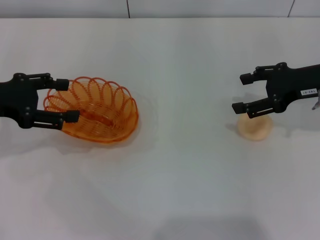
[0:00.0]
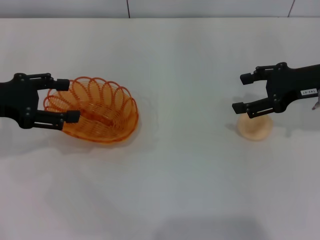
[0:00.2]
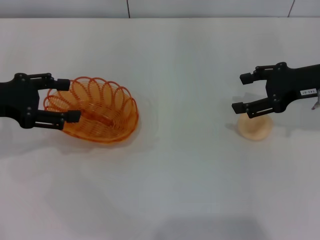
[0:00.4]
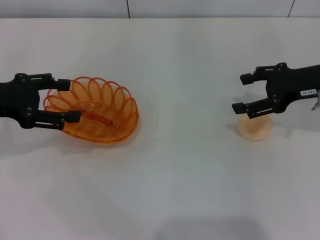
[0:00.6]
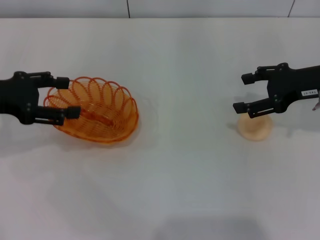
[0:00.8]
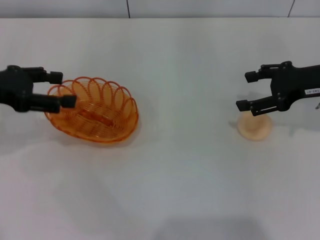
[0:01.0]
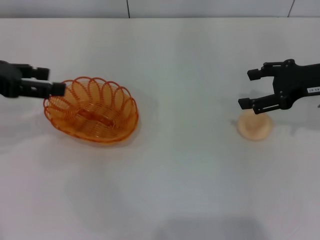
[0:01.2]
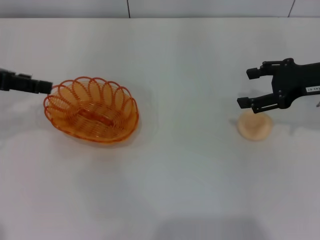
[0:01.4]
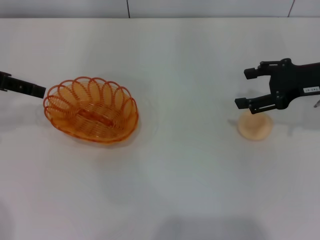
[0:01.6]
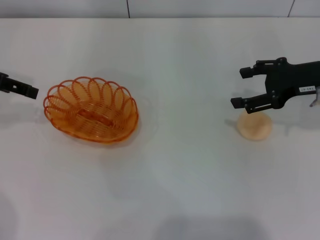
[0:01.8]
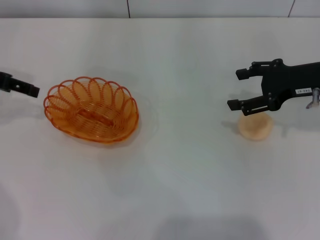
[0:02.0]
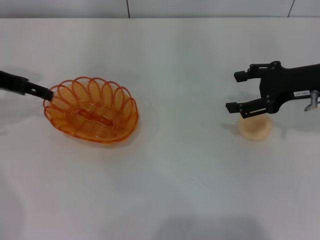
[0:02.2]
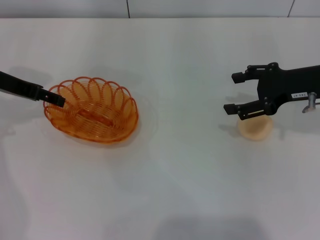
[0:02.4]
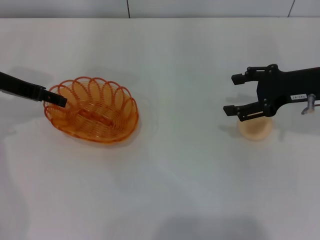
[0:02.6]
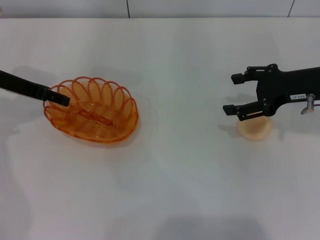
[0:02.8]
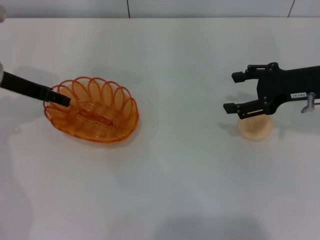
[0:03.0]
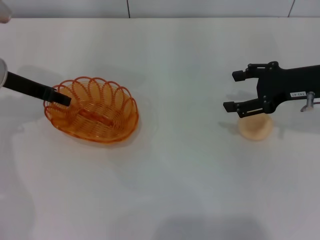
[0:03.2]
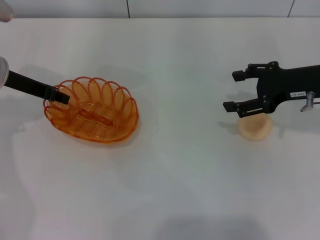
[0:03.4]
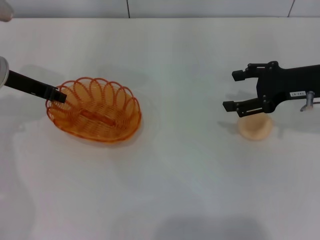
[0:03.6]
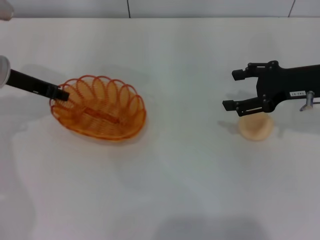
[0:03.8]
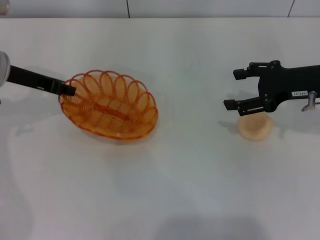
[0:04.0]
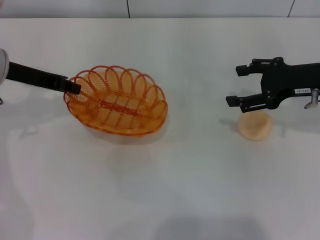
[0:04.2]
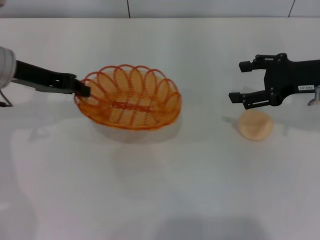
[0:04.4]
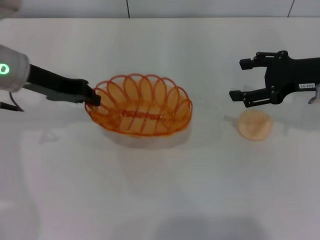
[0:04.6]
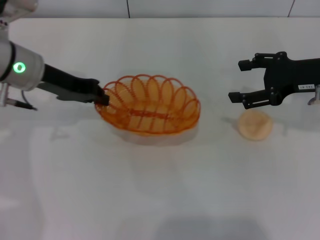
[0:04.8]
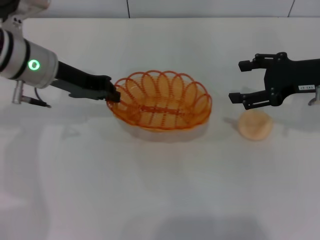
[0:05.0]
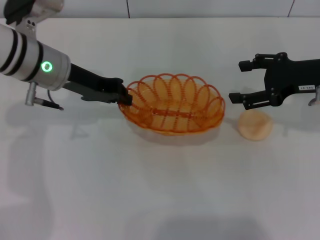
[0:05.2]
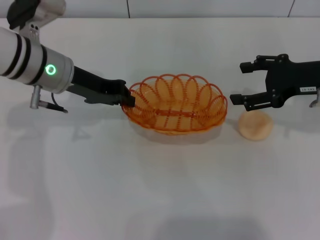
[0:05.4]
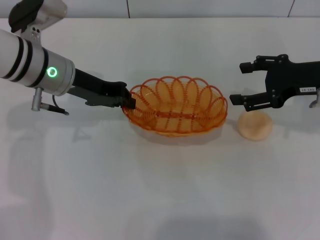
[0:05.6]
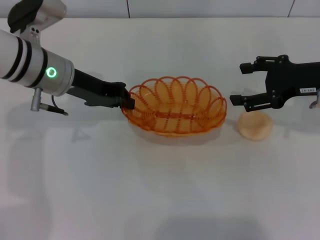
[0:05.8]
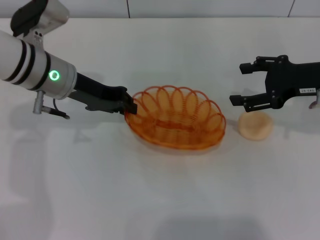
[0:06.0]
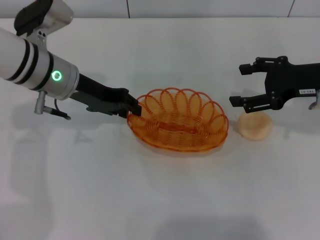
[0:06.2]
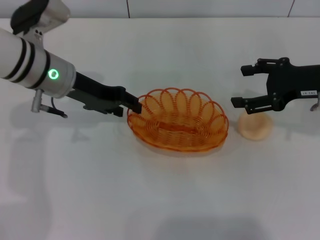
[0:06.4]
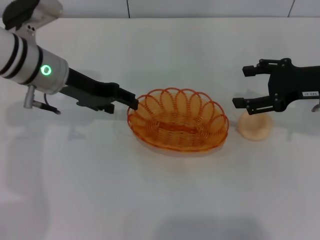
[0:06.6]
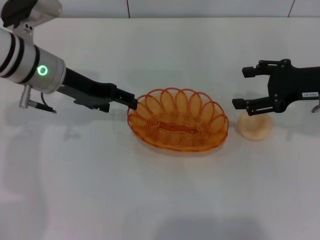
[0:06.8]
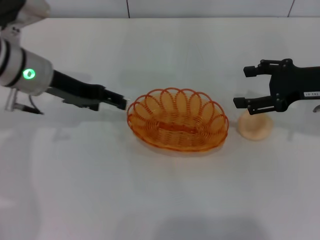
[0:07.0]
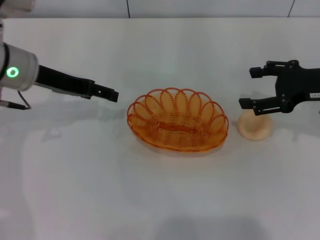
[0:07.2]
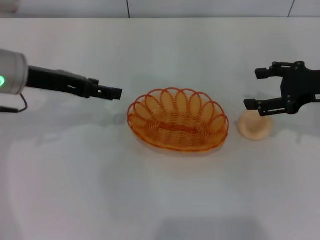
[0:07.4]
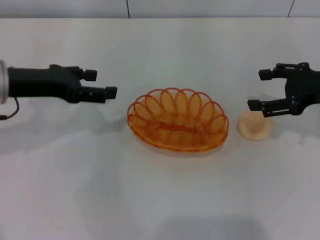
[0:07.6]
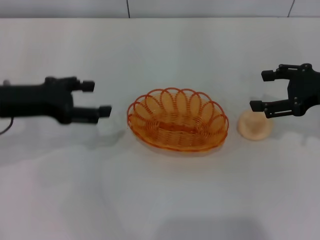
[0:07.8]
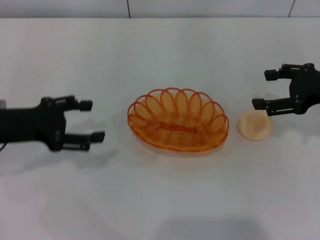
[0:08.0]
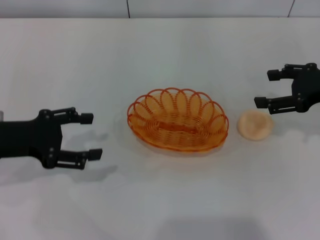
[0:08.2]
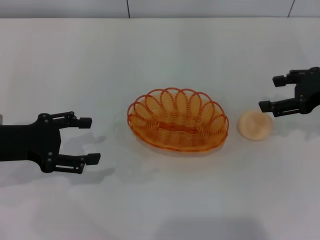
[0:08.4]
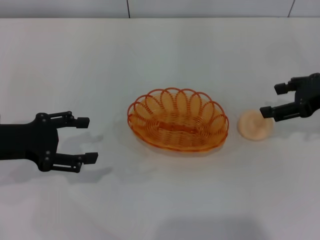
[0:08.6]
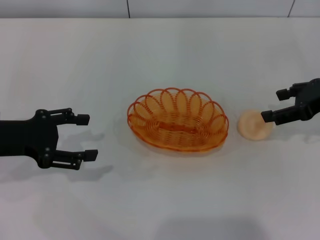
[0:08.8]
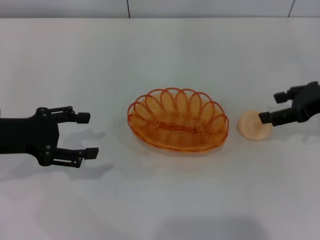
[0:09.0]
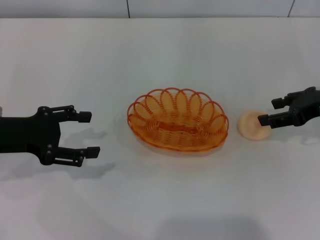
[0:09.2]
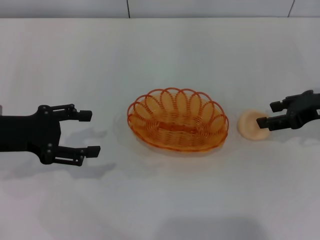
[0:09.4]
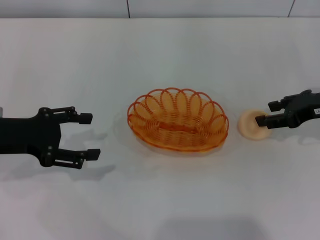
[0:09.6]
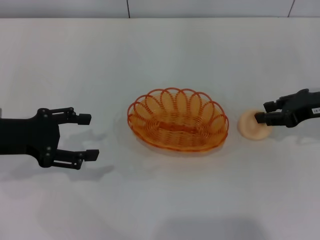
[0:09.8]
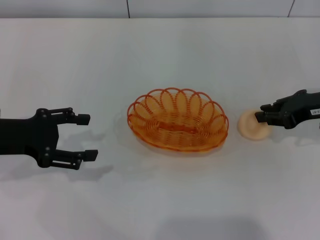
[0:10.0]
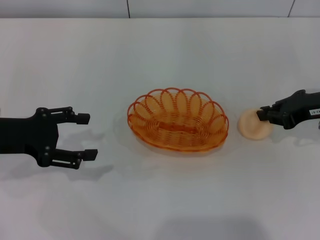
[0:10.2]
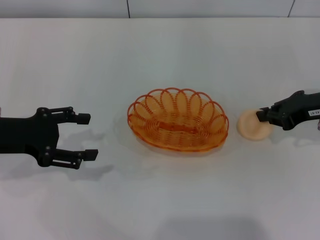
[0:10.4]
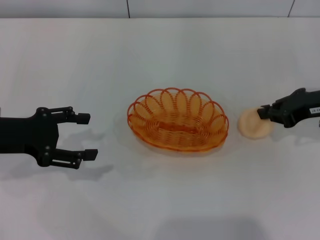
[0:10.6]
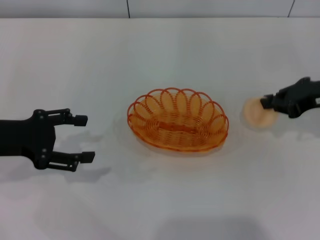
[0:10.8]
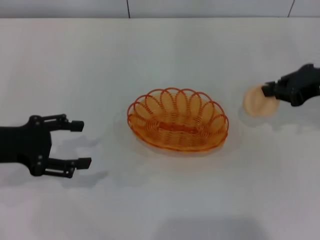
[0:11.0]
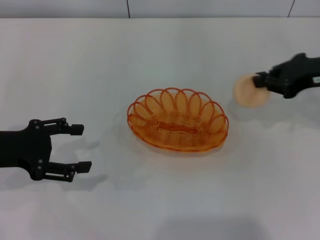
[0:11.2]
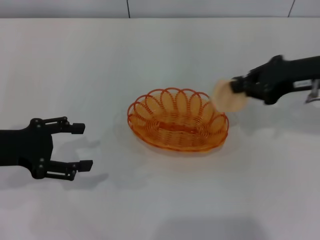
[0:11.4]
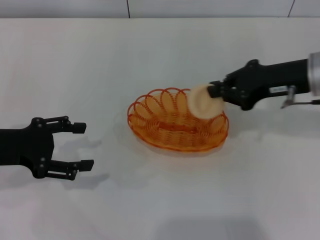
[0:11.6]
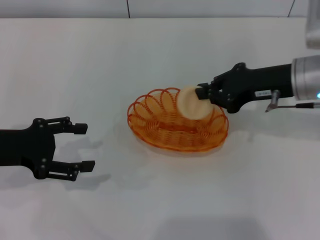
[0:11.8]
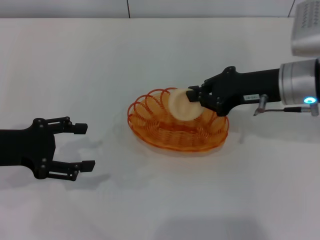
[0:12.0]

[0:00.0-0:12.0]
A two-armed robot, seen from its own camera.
Step, 0.0 to 4.4 s: Pick up the basket with the left gripper.
Step, 4.6 to 7.0 s: Place the basket in the center of view with the left gripper.
Step, 7.2 to 11.0 s: Pick up the egg yolk pastry with the right gripper.
0.0 to 1.6 s: The left gripper moves upward, some 5 cm.
1.6 to 3.0 s: The left gripper heads downward, covering roughly 10 cm.
3.0 to 4.4 s: The left gripper closes up.
4.4 to 6.0 s: The left gripper shifts approximately 5 cm to the right.
6.0 to 7.6 s: The left gripper moves to the left, about 5 cm, and opens.
7.6 to 9.0 s: The left gripper goes roughly 5 cm backward.
9.0 to 10.4 s: The right gripper closes up.
10.4 to 12.0 s: The right gripper heads to the left, covering approximately 10 cm.

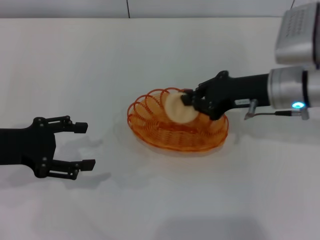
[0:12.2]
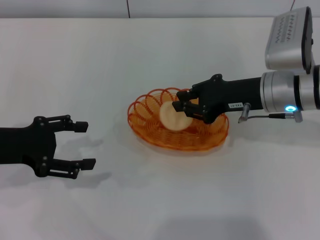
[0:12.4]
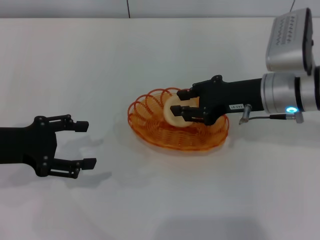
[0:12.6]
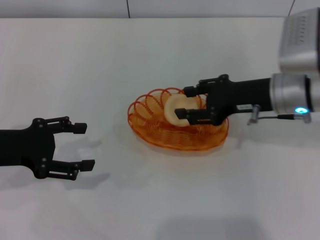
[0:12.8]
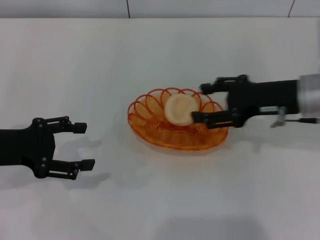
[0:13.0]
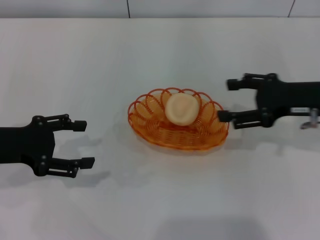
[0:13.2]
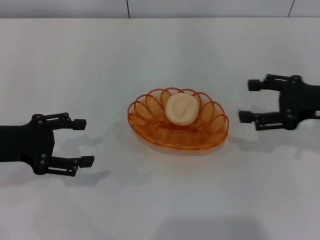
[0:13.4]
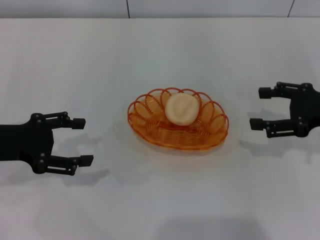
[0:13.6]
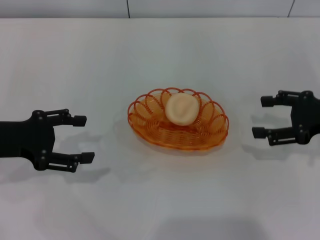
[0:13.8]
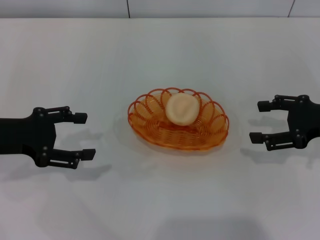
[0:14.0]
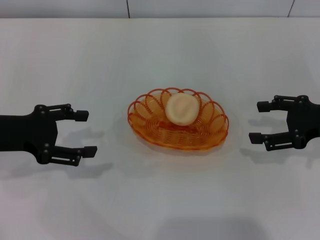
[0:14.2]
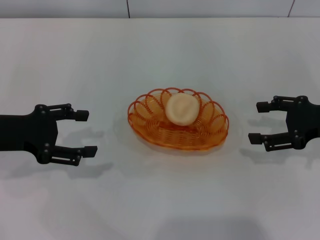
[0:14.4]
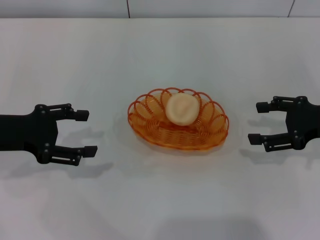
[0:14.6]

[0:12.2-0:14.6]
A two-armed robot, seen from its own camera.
Step, 12.2 to 13.2 s: Place the egg yolk pastry into the basket with the right gripper.
12.2 to 13.4 s: The right gripper heads to the right, covering some 10 cm, and opens its fingers.
13.4 to 14.6 s: The grippers stay close to where they were, moving slightly.

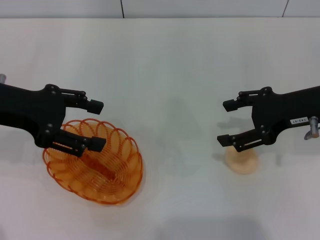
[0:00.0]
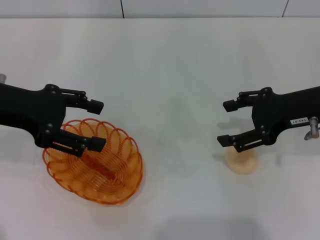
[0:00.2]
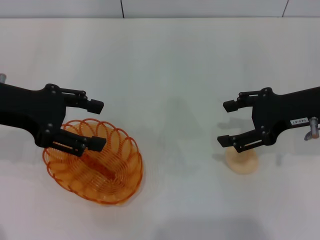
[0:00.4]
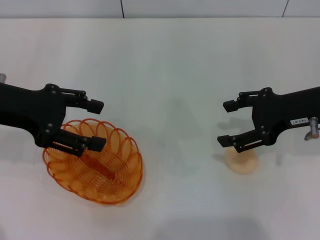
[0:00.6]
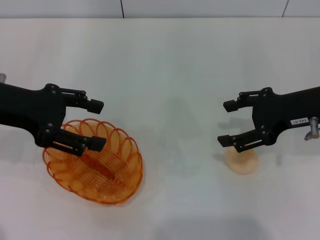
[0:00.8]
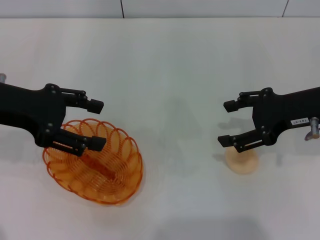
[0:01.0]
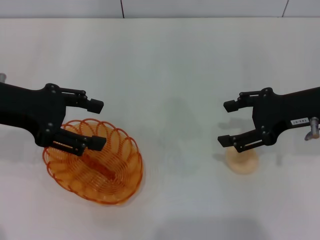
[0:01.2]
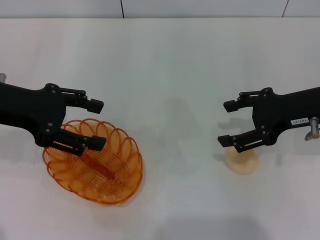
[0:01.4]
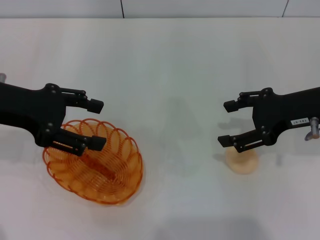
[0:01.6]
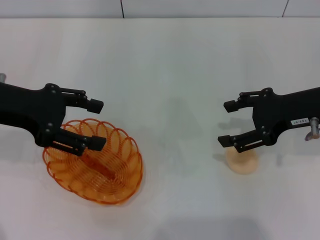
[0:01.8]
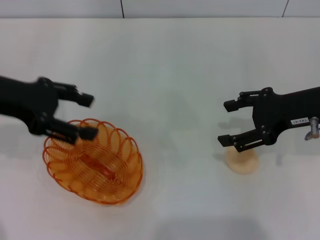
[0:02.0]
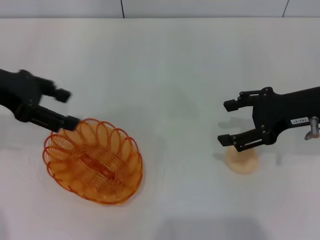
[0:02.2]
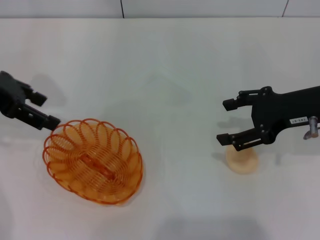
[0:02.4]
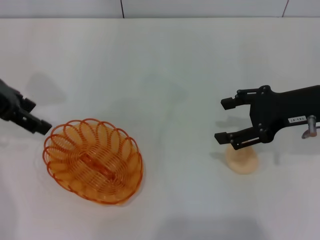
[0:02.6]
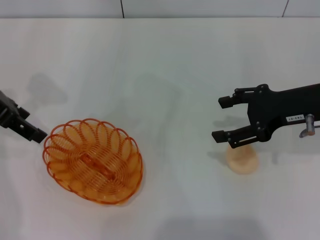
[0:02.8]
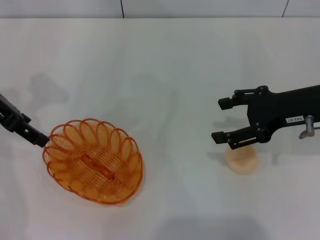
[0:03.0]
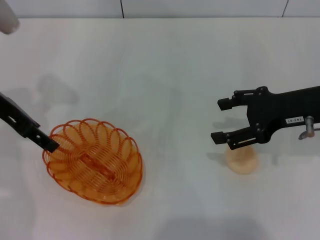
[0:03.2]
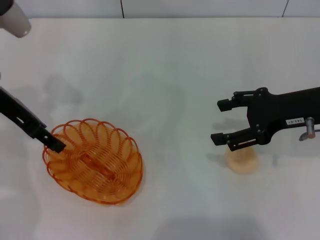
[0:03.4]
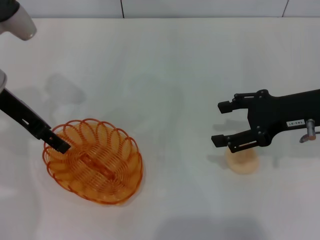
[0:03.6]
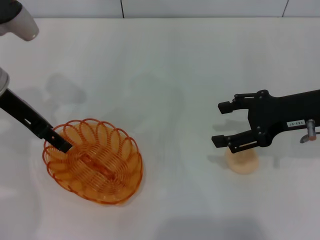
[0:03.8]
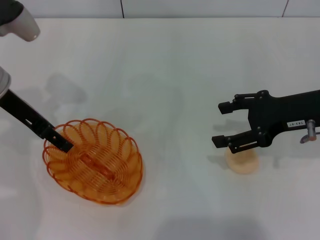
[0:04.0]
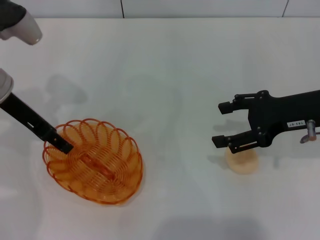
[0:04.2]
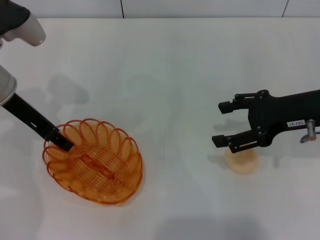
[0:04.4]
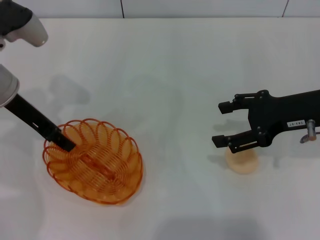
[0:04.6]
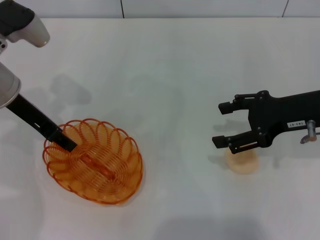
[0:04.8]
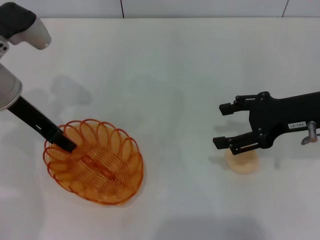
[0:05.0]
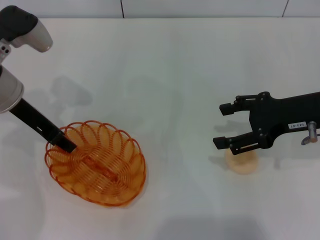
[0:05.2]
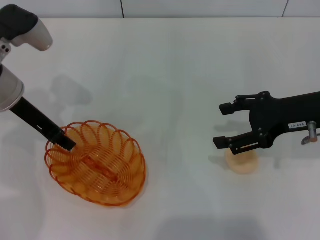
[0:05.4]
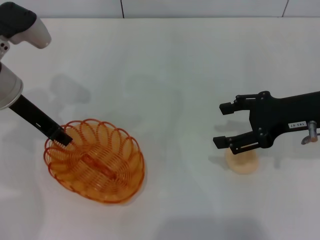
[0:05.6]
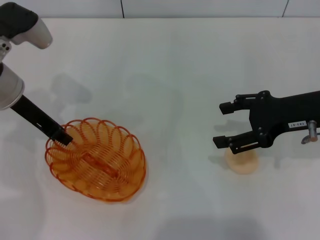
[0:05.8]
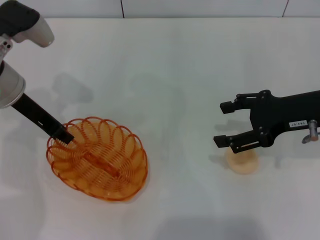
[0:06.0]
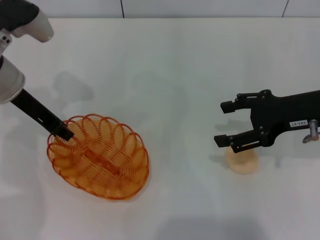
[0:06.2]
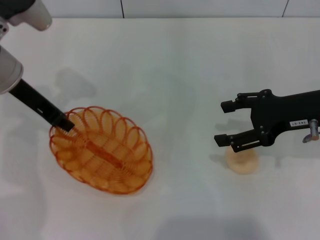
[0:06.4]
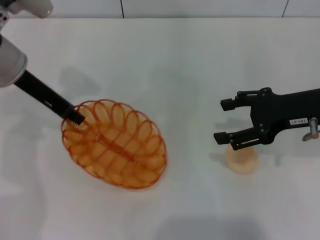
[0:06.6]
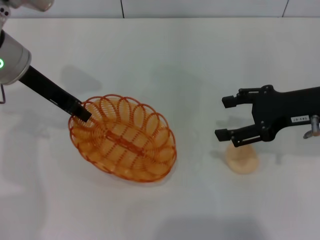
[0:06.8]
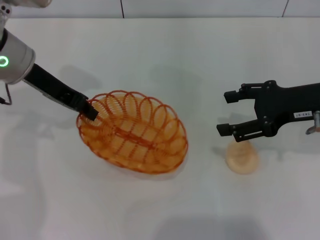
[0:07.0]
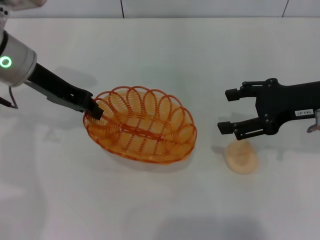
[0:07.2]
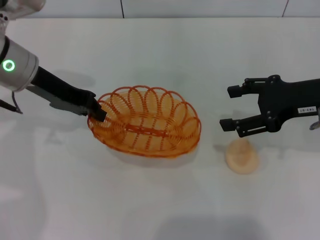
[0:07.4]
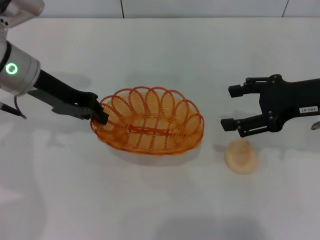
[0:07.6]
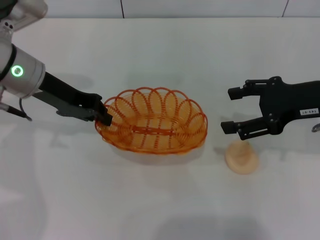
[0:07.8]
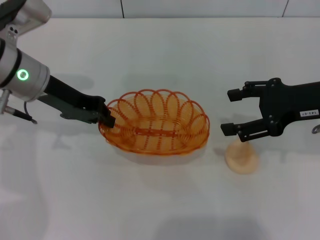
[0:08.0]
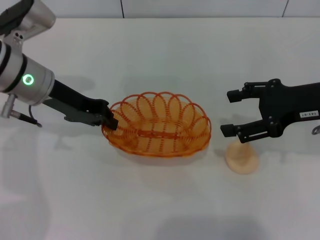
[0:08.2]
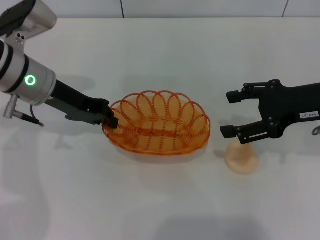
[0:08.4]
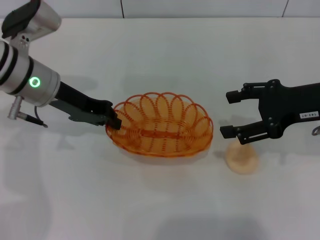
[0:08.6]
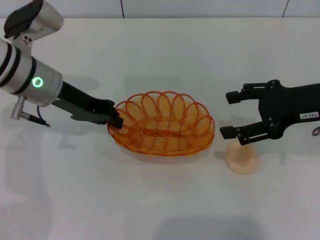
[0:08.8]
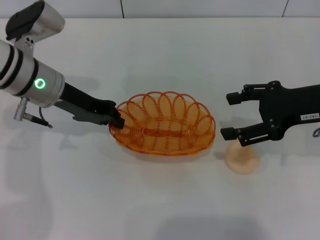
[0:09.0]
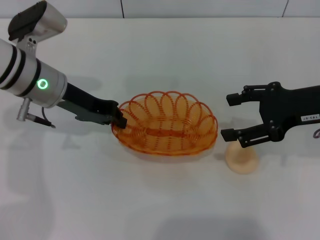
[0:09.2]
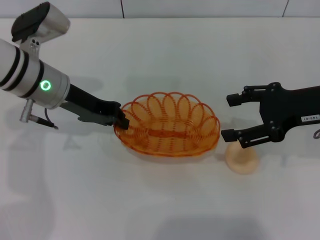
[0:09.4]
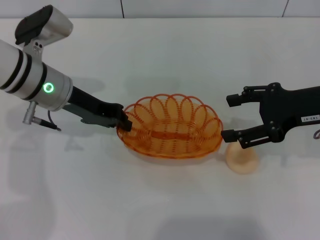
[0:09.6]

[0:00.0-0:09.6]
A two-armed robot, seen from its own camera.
Step, 0.0 to 6.8 s: Pick up the basket with the left gripper.
0.0 to 1.6 s: Neither gripper changes place.
1.6 to 3.2 s: The left gripper travels forward by approximately 5 cm.
3.2 to 4.8 s: The left gripper closes its fingers.
4.8 to 6.4 s: The left gripper closes up.
8.0 to 9.6 s: The grippers move only a little.
